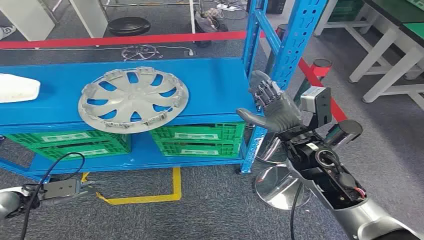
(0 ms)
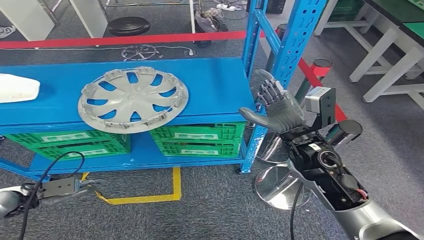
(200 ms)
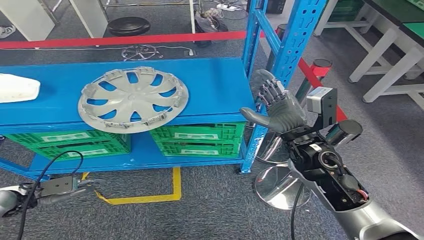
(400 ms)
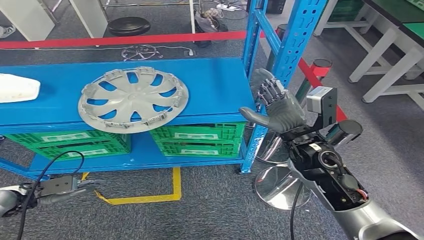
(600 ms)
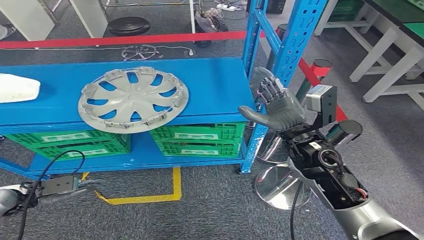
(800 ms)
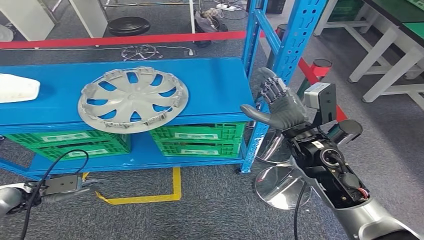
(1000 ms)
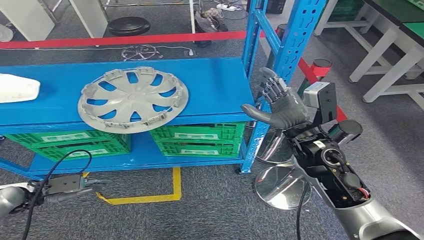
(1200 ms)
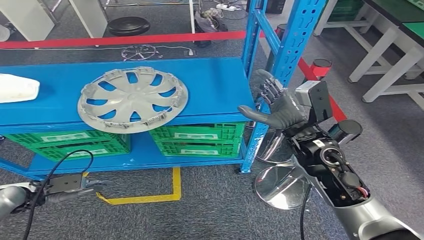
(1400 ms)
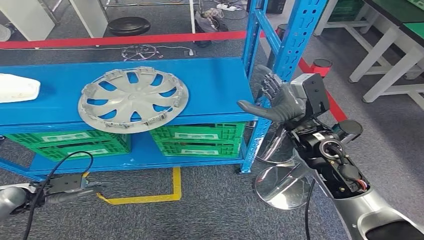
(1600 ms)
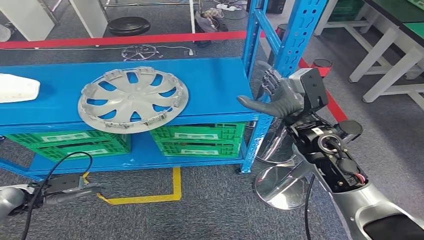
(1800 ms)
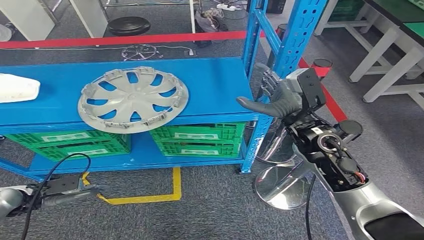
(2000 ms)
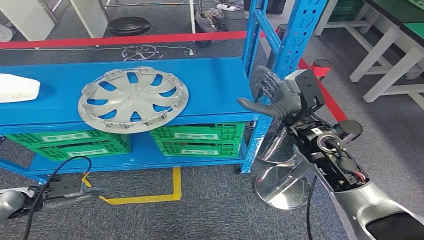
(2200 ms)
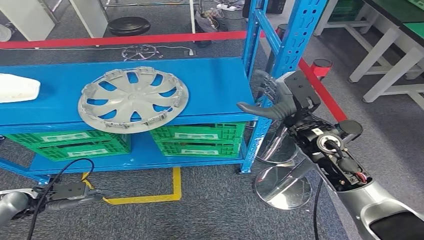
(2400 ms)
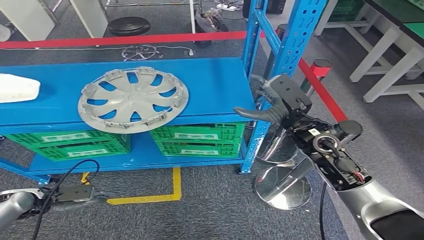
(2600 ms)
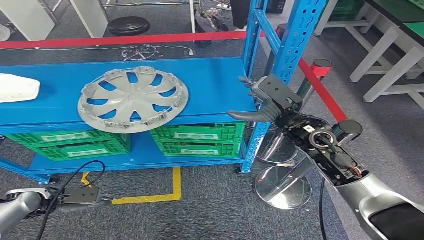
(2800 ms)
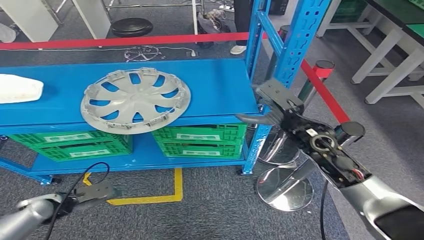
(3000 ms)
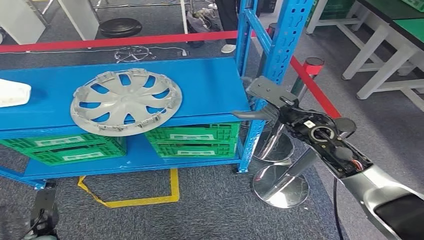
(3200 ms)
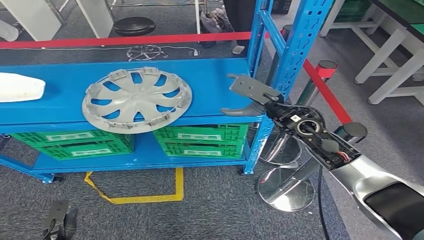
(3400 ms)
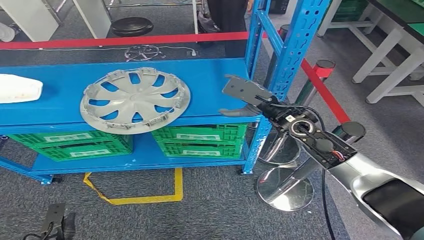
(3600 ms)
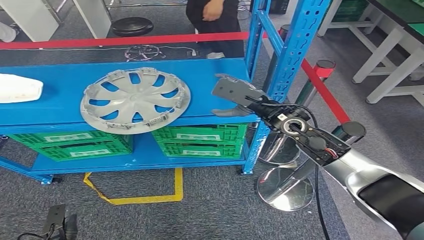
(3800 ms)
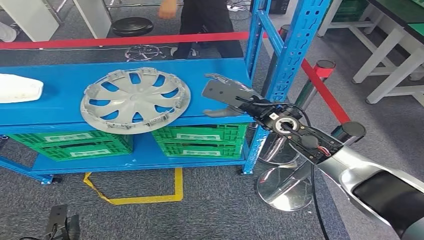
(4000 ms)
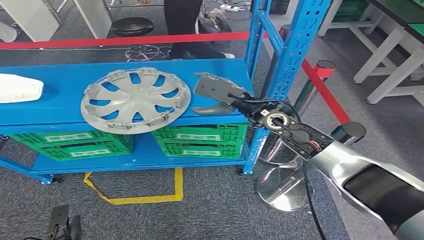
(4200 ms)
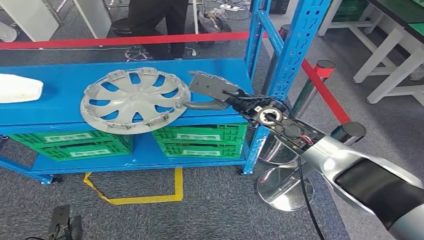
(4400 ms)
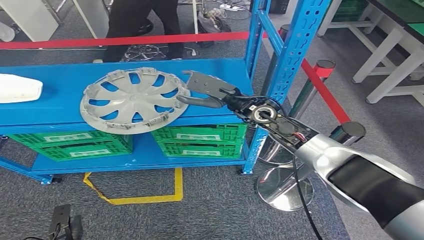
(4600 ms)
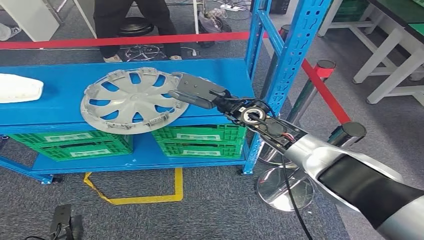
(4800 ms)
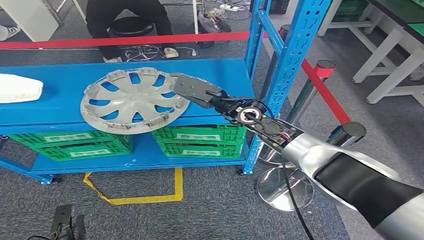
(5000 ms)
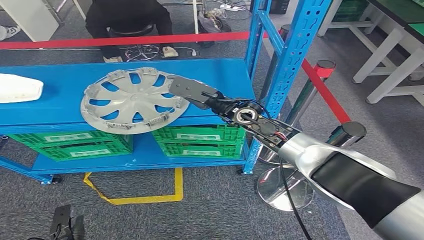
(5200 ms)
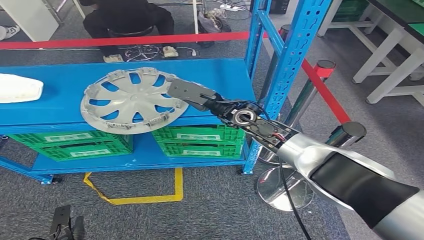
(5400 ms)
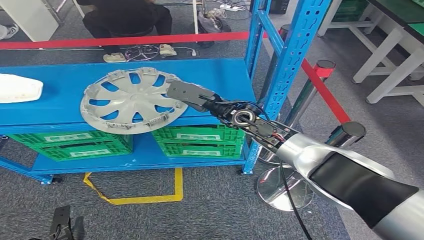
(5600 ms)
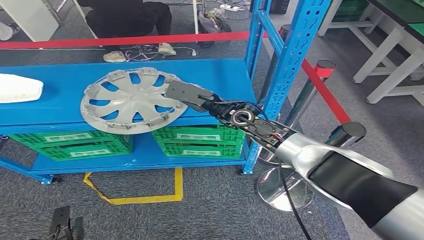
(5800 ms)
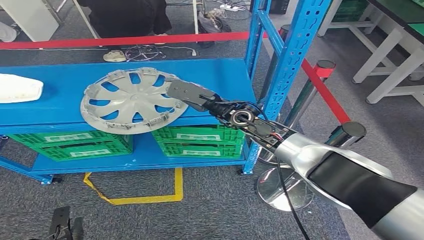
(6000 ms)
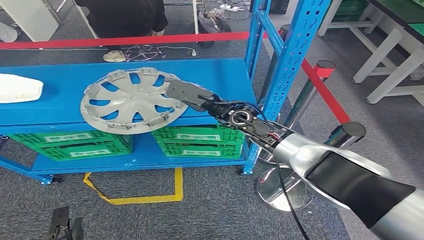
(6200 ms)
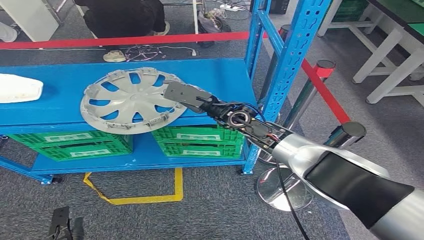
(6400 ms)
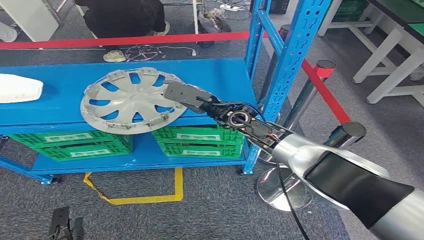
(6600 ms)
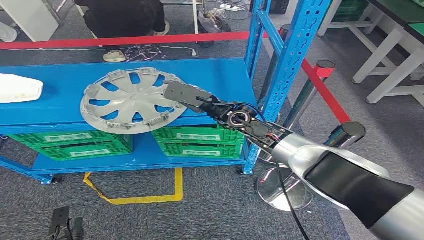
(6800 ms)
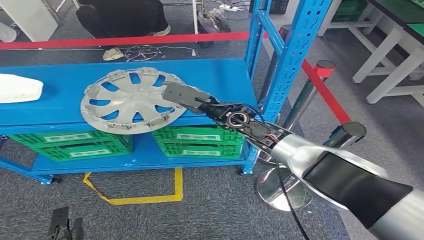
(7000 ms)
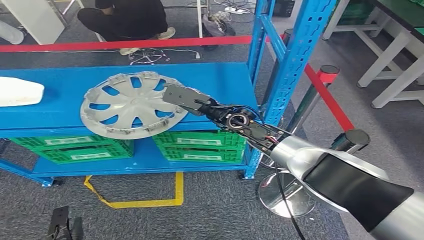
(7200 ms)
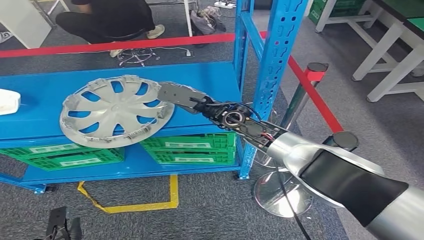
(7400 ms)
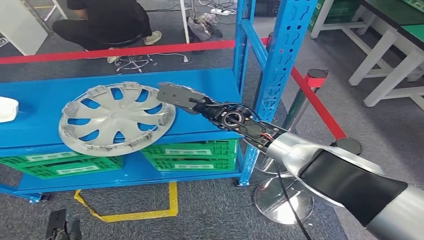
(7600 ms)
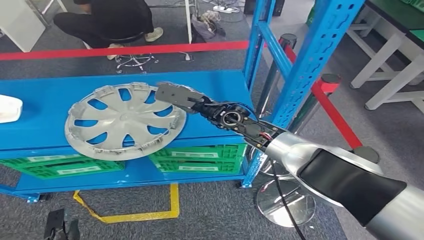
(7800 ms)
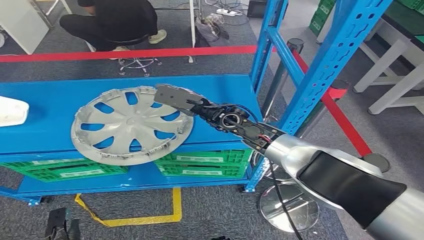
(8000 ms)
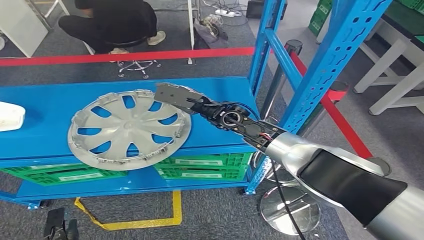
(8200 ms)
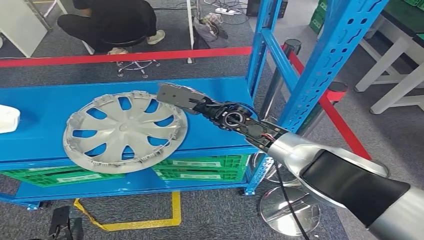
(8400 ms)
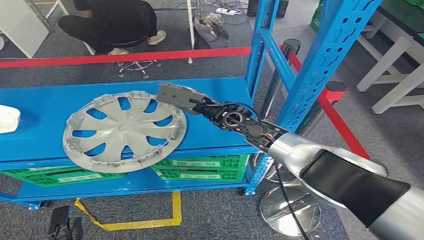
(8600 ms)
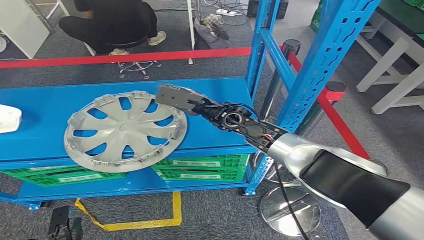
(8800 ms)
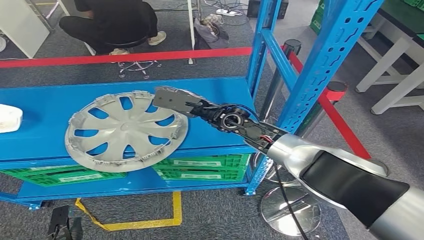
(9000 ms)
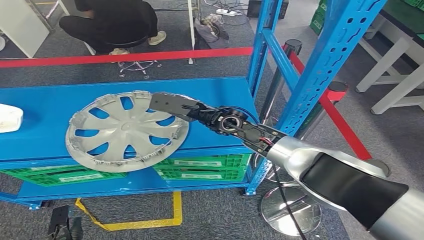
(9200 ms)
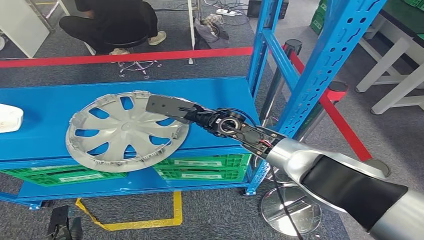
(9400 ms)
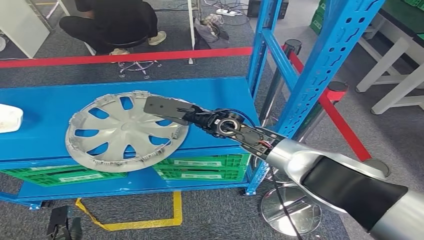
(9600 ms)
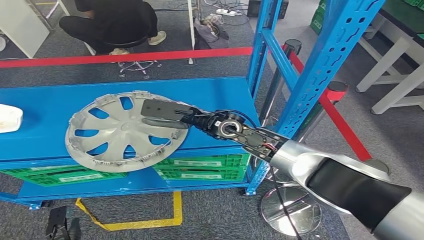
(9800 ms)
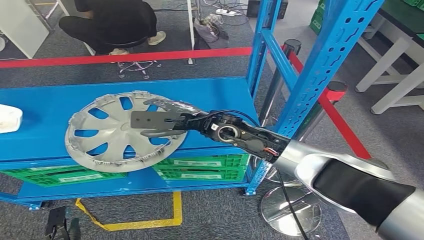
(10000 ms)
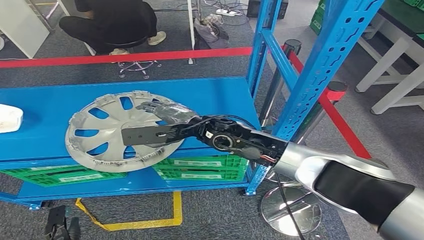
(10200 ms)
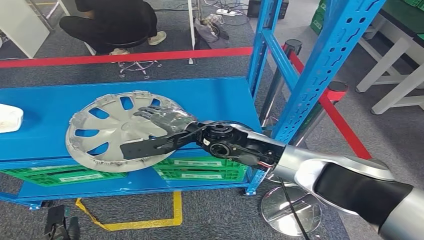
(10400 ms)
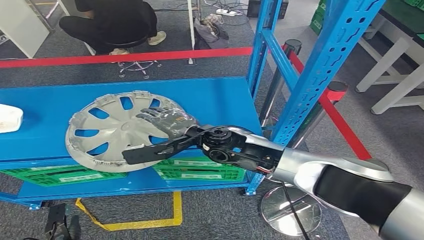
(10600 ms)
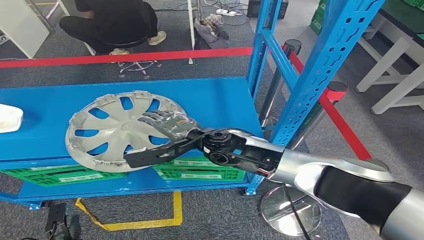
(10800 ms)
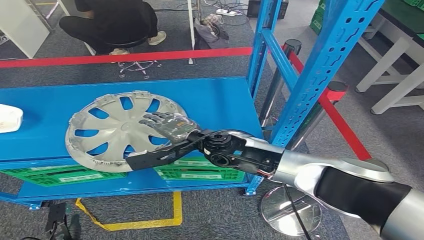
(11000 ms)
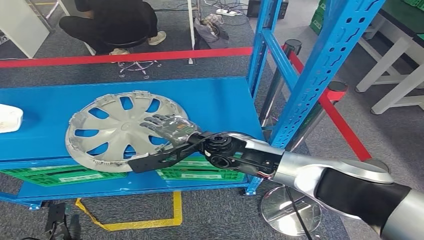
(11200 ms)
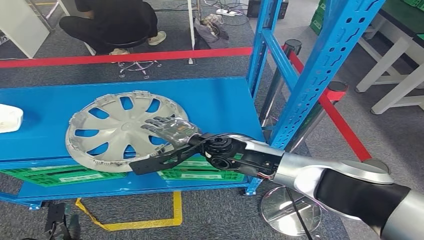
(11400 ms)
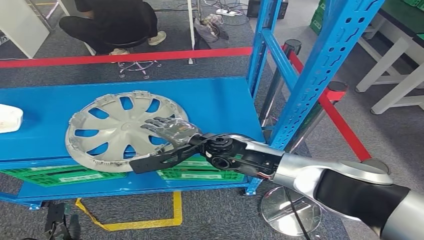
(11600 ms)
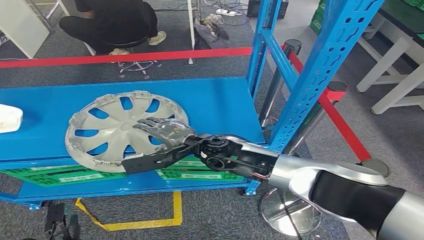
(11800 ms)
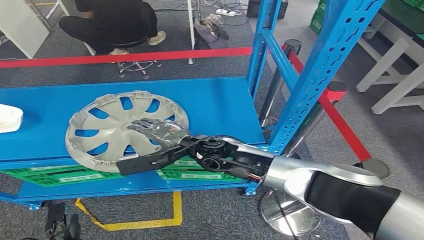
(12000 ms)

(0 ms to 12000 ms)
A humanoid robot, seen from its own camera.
3000 ms - 4400 ms: The left hand moves backward and downward, roughly 15 cm. The right hand is displaced forward and to the left by about 10 cm.
4400 ms - 6000 ms: The right hand travels to the left by roughly 5 cm.
9000 ms - 10400 ms: The right hand travels backward by roughly 5 cm.
10400 ms - 12000 ms: The hands stay close to where they were, moving slightly.

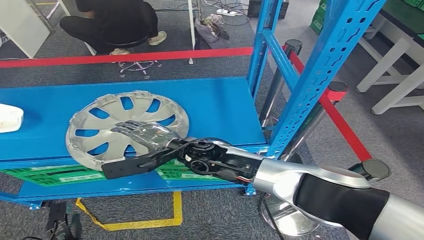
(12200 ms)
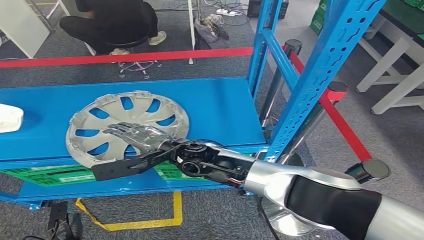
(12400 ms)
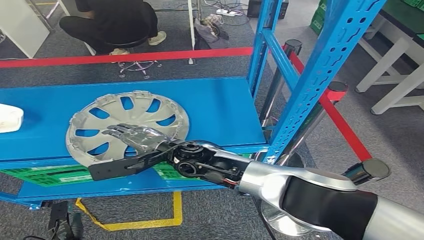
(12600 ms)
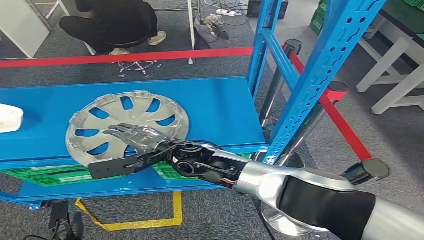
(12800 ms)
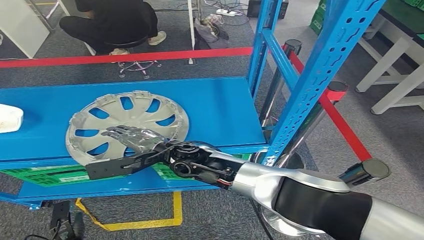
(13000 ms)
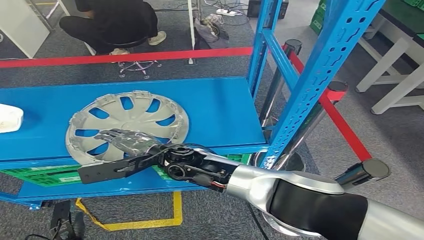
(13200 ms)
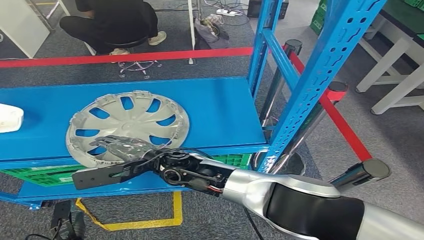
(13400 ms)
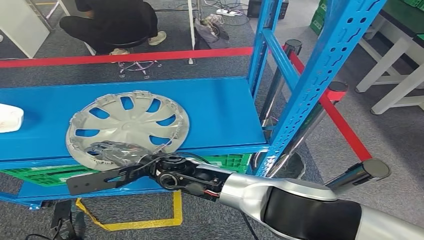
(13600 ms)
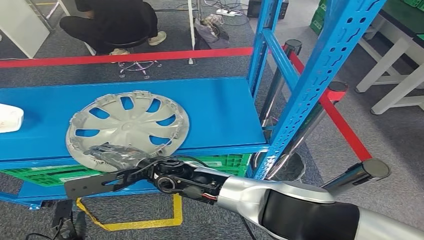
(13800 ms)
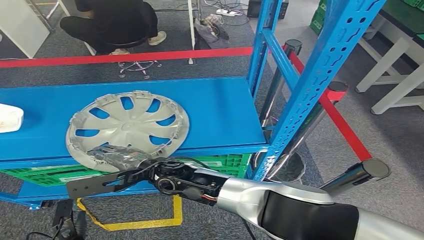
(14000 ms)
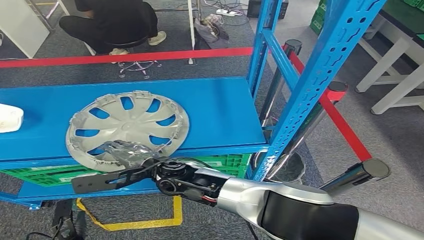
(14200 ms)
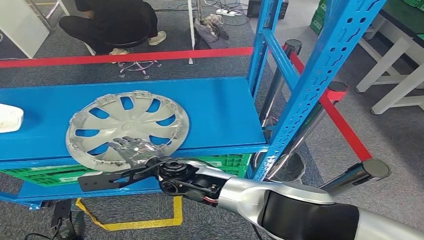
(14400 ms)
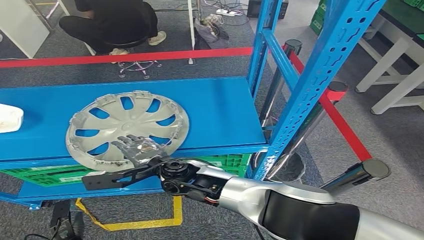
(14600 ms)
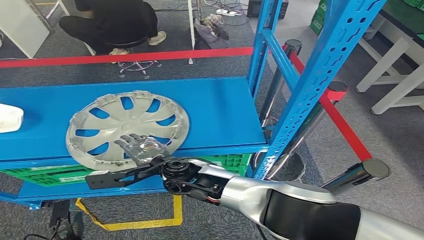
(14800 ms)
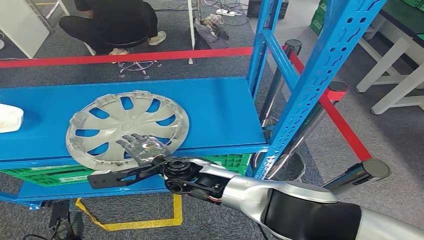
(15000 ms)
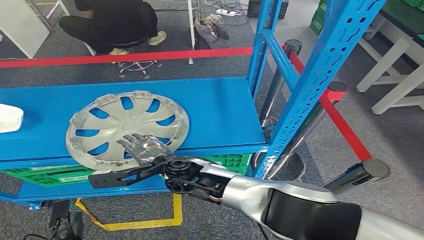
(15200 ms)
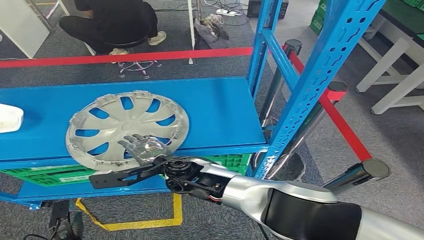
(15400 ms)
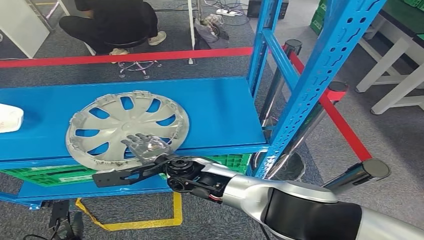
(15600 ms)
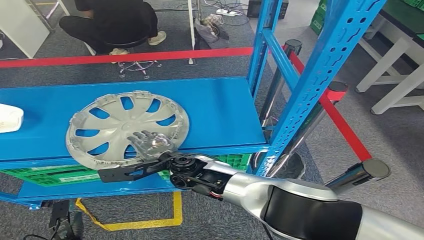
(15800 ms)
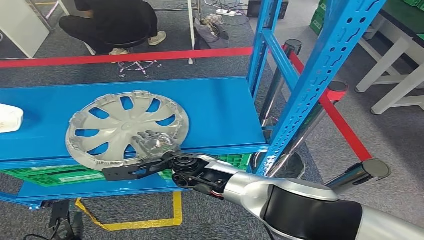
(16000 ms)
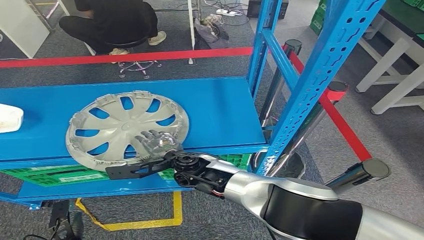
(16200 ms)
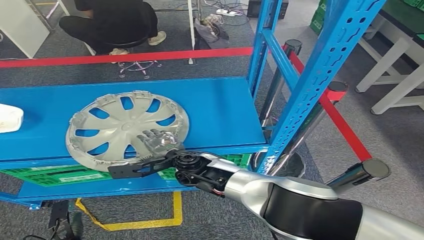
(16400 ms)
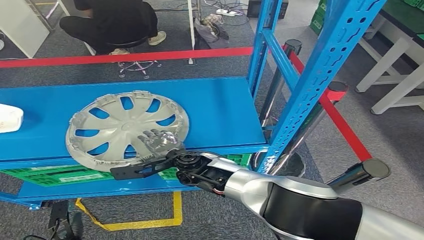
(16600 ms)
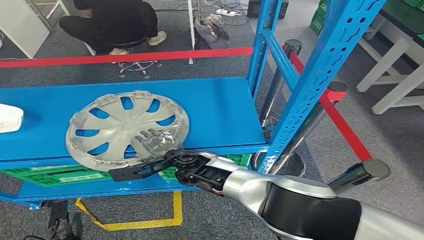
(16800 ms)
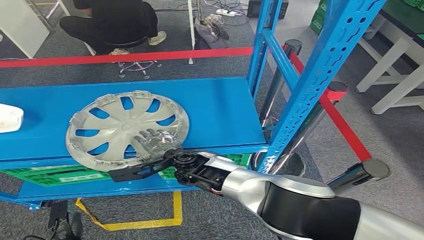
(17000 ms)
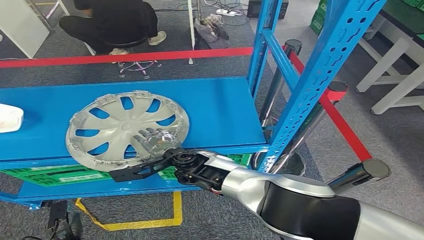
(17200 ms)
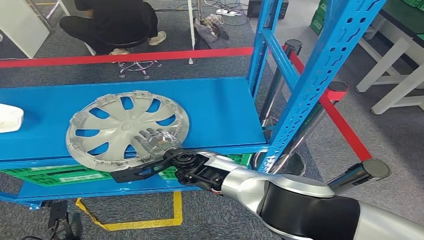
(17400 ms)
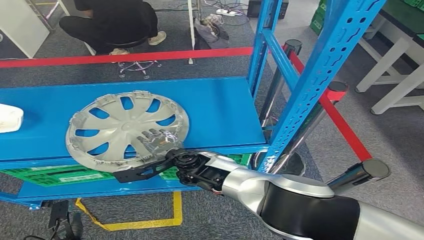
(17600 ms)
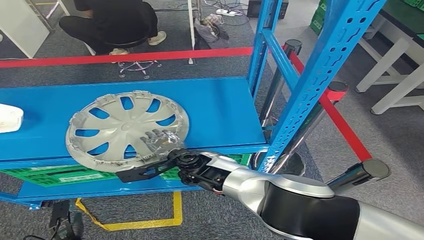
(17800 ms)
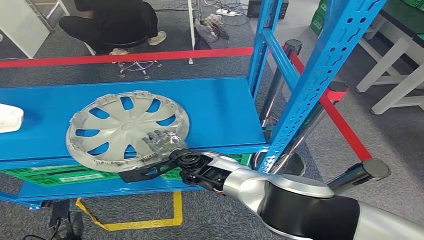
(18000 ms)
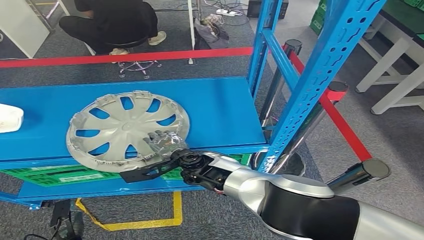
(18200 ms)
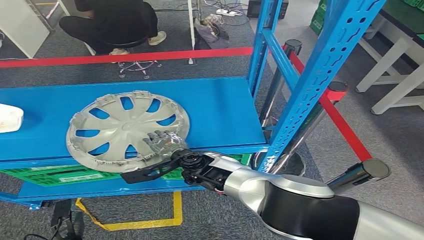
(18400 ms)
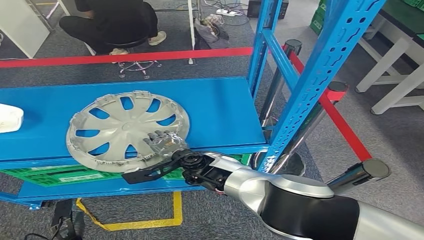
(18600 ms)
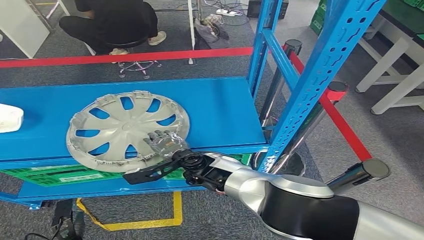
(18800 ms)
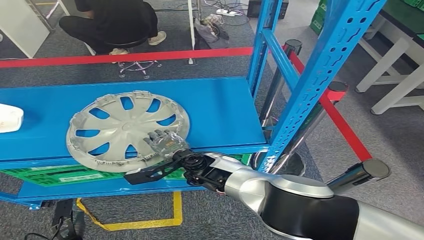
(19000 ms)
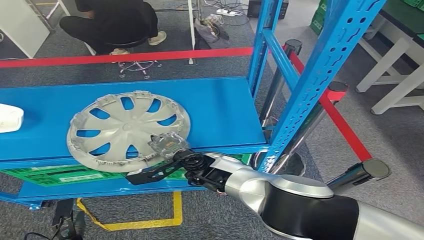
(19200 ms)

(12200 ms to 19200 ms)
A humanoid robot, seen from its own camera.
12200 ms - 13600 ms: The right hand goes about 5 cm to the left.
15000 ms - 17800 ms: The hands stay close to where they were, moving slightly.
17800 ms - 19200 ms: The hands make only small movements.
